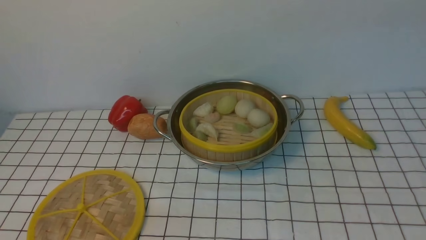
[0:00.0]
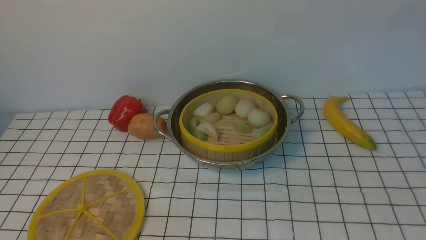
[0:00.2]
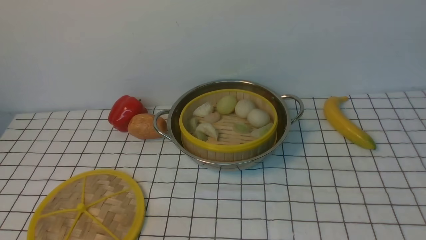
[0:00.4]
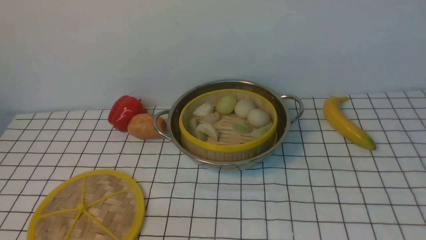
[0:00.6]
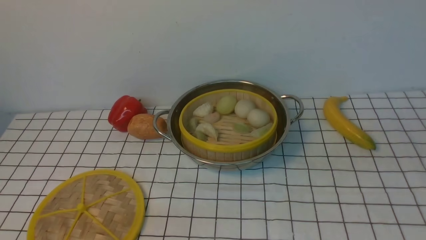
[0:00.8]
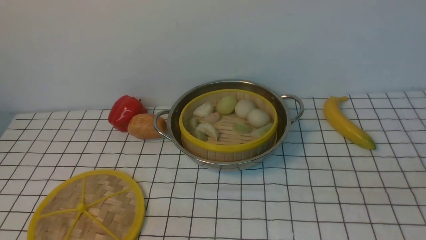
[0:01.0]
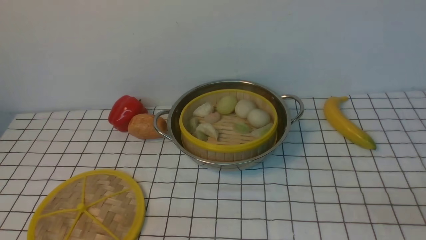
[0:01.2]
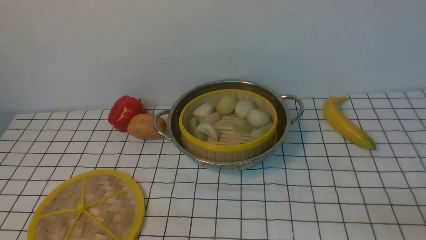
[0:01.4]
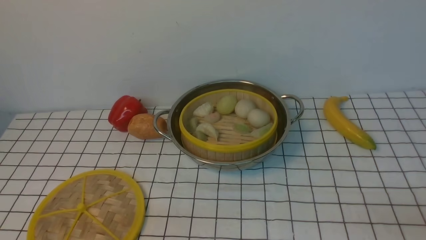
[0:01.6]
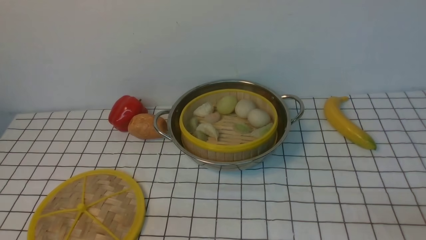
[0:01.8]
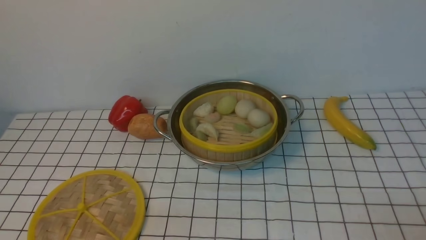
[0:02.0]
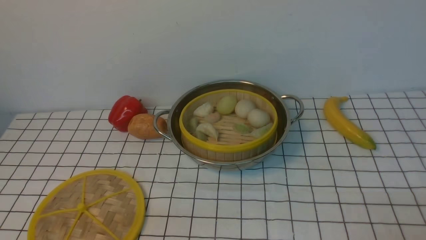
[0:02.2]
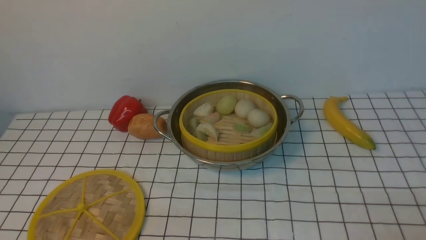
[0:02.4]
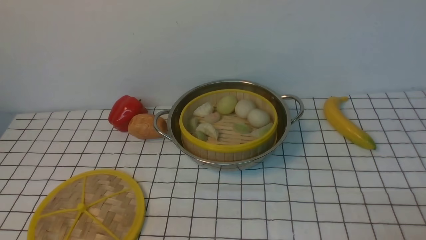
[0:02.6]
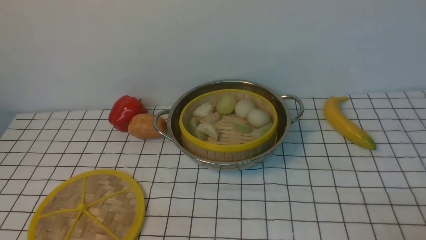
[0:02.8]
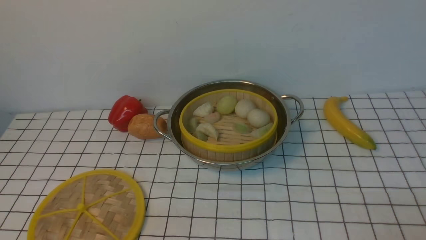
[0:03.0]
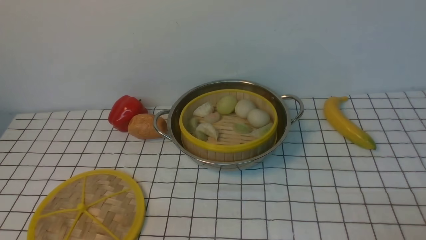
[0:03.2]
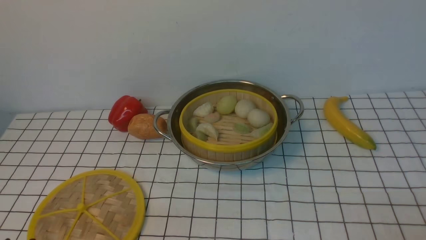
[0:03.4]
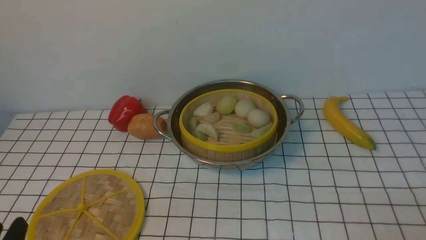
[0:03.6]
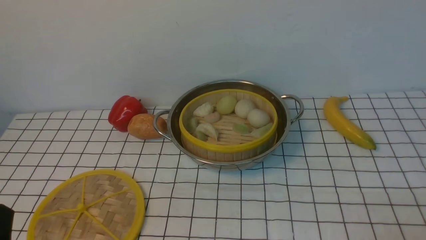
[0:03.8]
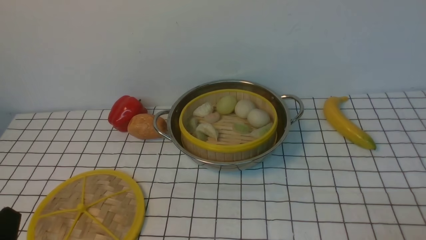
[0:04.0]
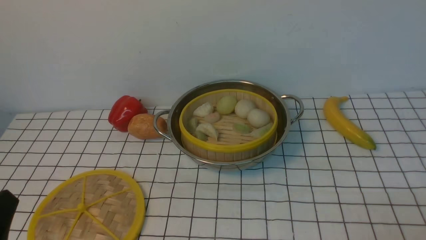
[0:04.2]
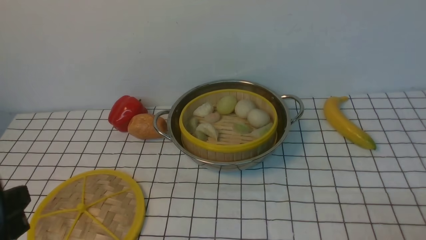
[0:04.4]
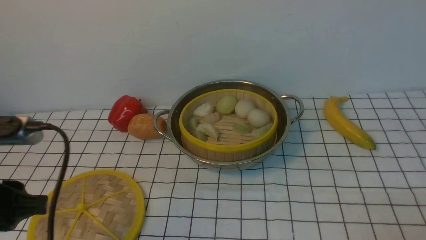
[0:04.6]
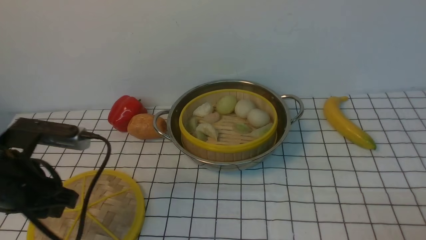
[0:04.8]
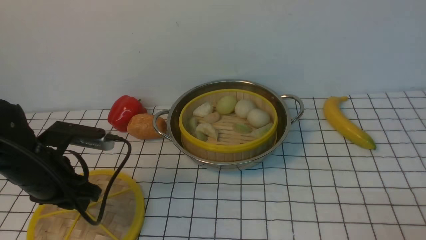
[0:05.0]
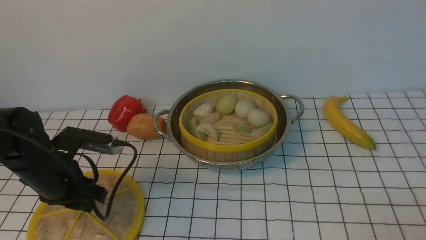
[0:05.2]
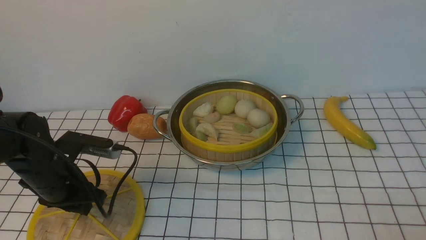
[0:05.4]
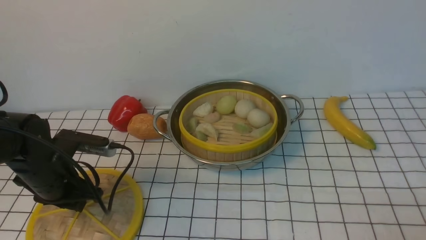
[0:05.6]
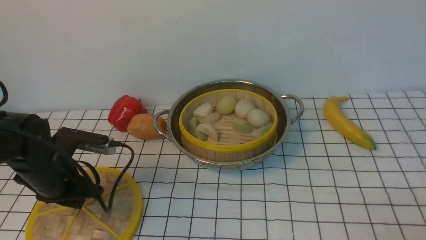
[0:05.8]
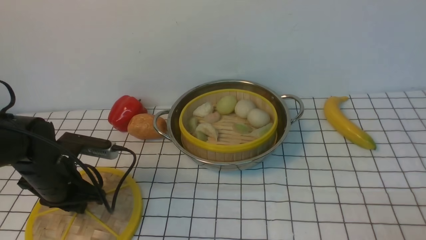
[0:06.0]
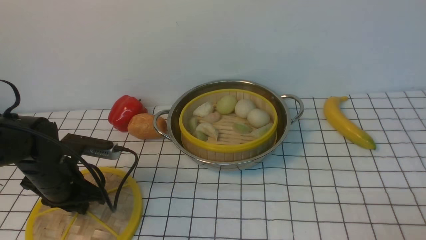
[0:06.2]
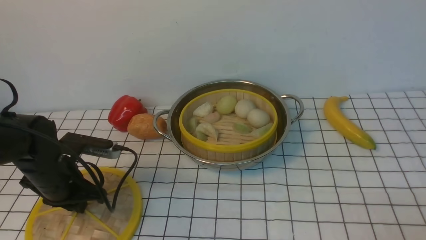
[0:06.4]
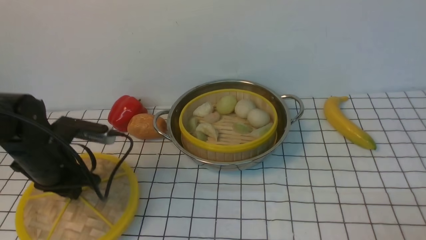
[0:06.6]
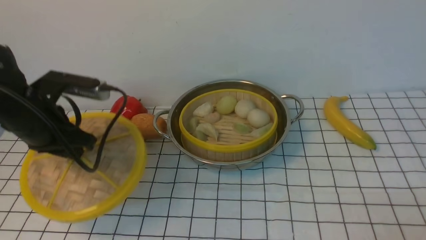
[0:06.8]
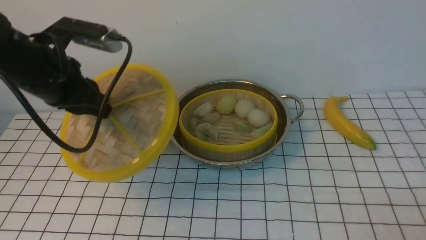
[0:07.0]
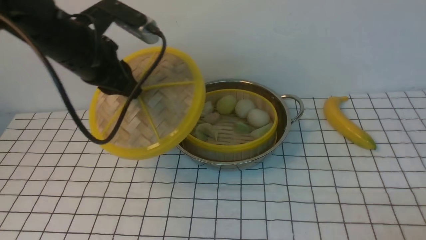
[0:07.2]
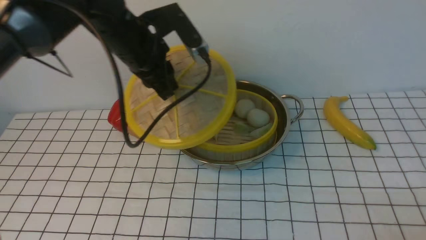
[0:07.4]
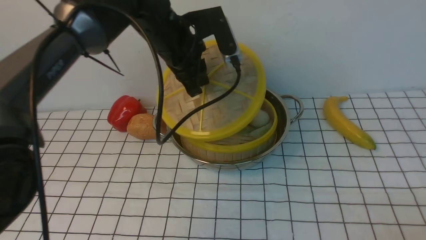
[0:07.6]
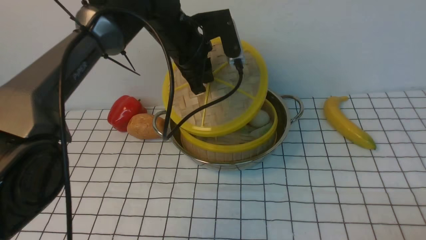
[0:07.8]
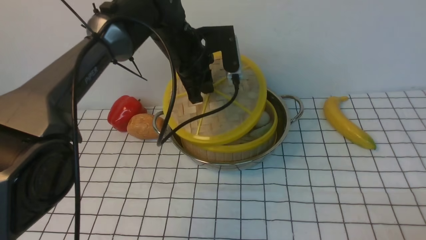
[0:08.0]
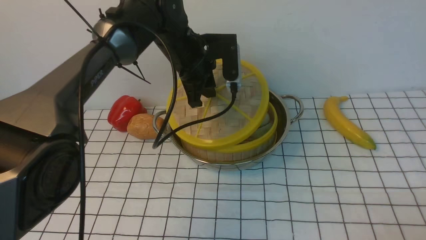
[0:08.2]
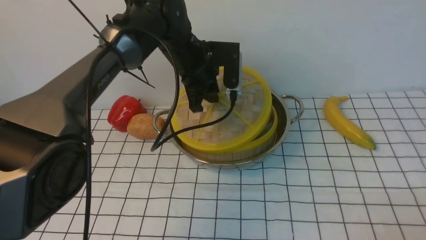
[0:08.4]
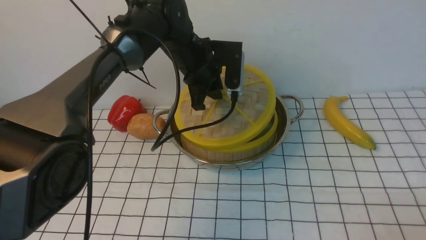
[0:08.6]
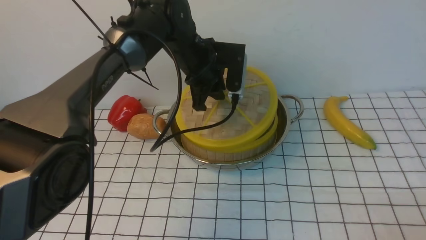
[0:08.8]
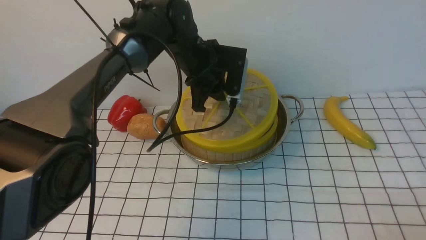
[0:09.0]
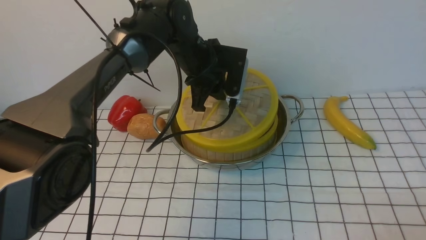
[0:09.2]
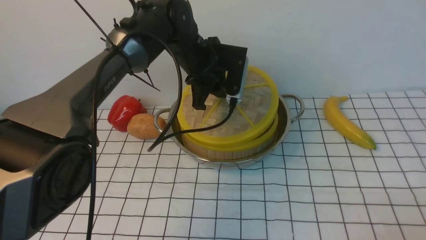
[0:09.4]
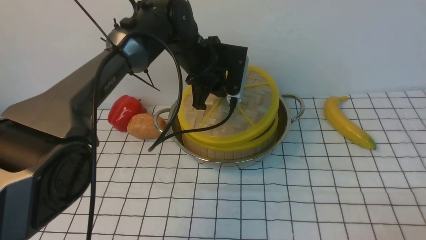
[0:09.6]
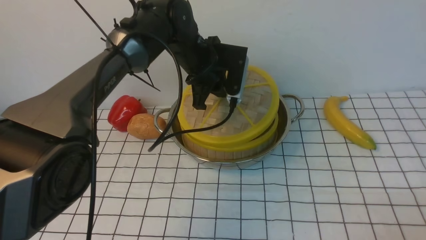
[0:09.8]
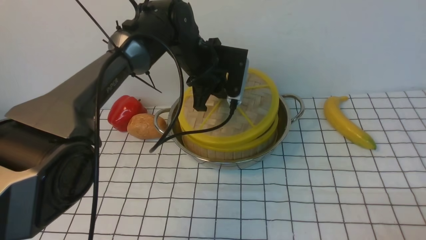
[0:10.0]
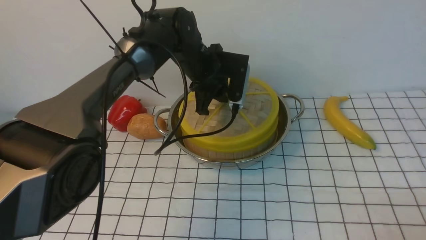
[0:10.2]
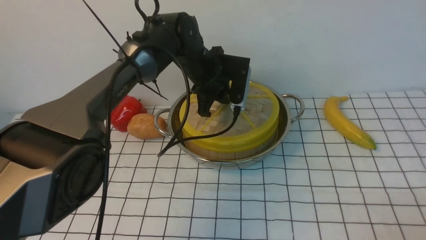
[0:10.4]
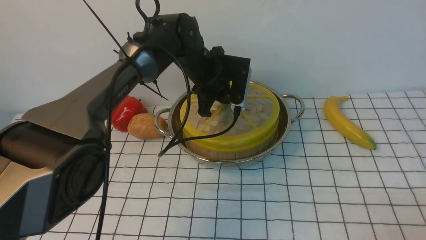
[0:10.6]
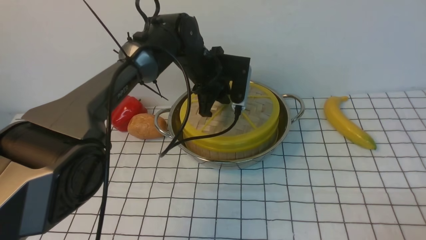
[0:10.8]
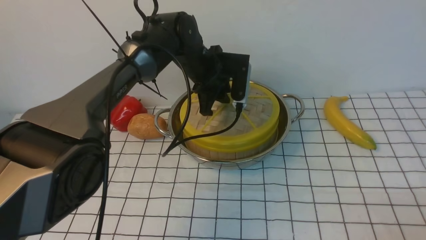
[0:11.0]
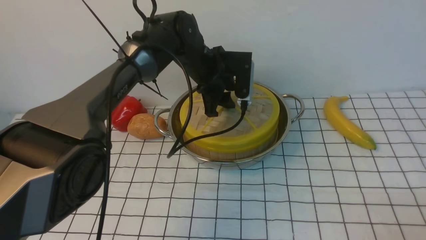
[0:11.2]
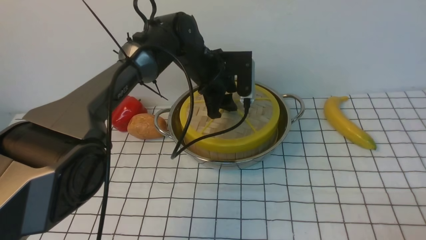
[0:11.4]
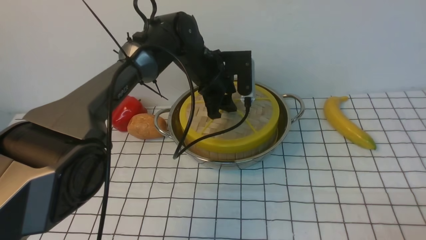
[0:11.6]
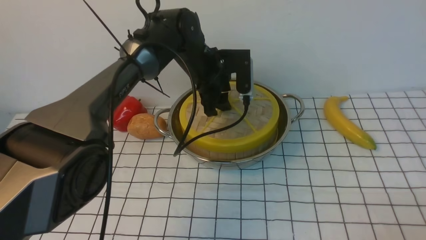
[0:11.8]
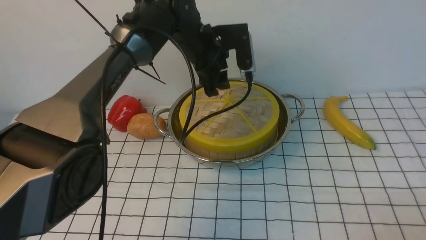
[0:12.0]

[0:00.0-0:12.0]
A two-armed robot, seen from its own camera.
Task of the whole recording: place the steamer in the pot on the white tablecloth, and put the lid on the steamer.
Step, 0:00.0 to 0:06.6: use the left arm to lift the lid of the steamer.
0:03.0 to 0:04.4: The left gripper goes roughly 10 cm upward.
0:04.4 to 0:06.0: The left gripper travels forward and downward by approximately 25 cm.
0:06.0 to 0:07.6: The left gripper shifts about 25 cm to the right, upward and forward.
0:07.6 to 0:09.0: The left gripper shifts some 5 cm downward.
0:09.0 to 0:10.4: The grippers stay close to where they were, moving slightly.
0:10.4 to 0:12.0: The left gripper moves upward, roughly 5 cm, and opens.

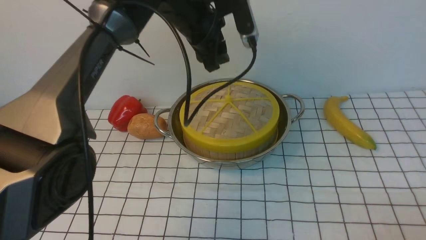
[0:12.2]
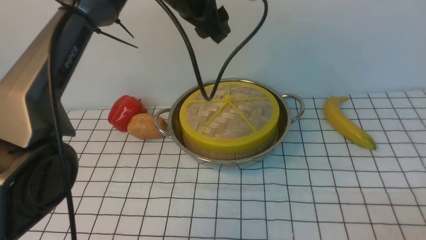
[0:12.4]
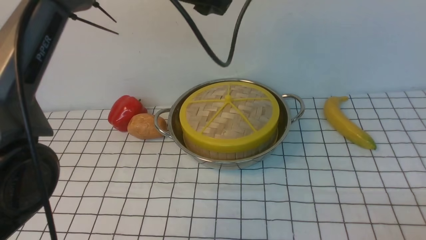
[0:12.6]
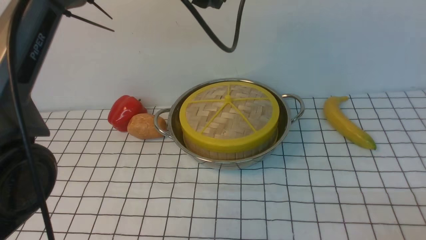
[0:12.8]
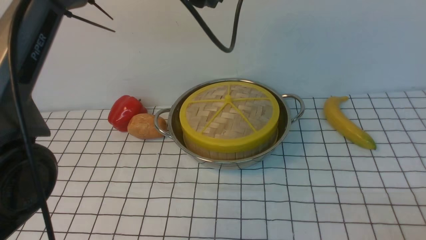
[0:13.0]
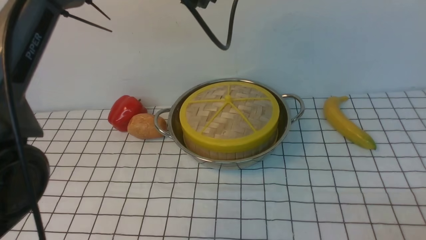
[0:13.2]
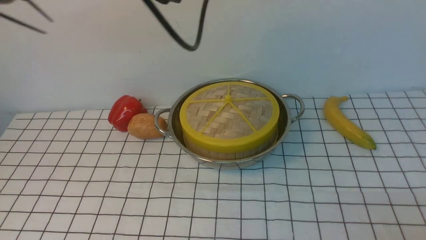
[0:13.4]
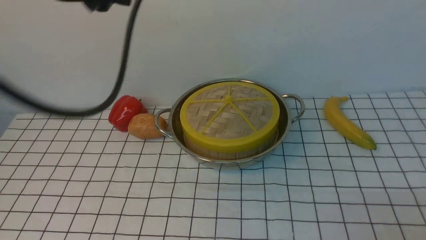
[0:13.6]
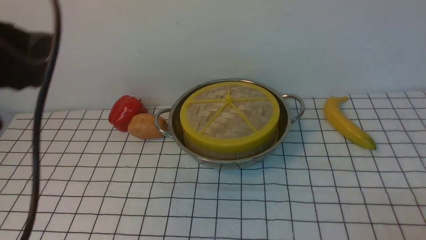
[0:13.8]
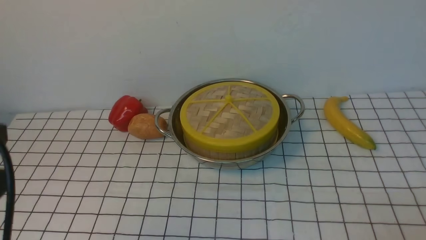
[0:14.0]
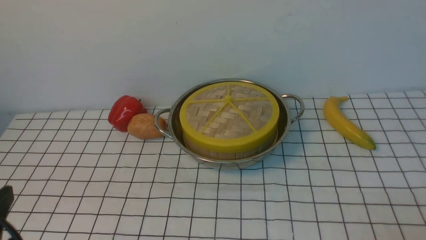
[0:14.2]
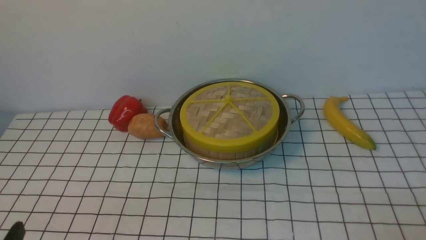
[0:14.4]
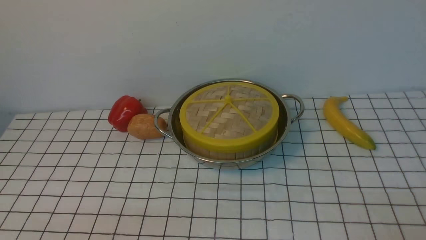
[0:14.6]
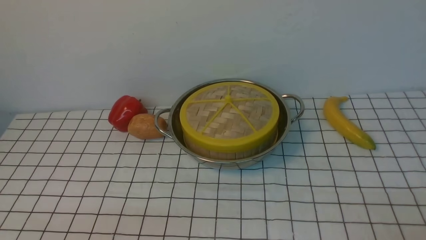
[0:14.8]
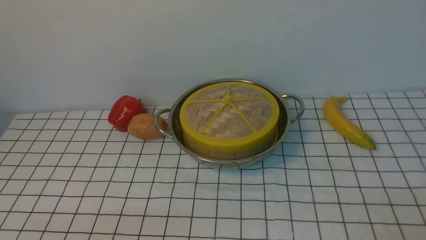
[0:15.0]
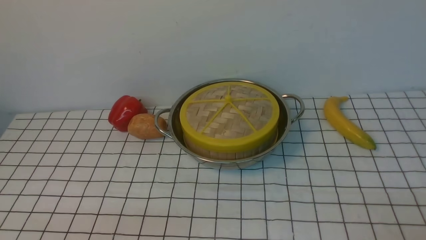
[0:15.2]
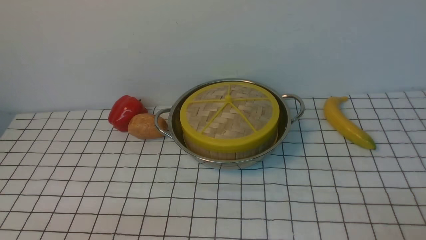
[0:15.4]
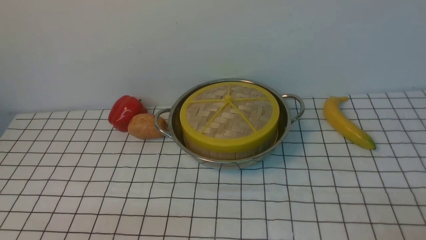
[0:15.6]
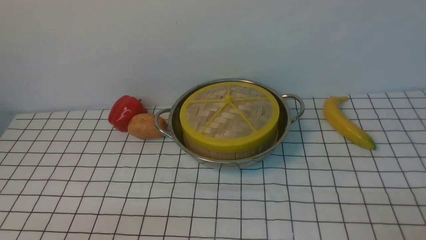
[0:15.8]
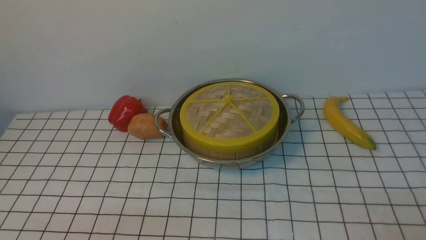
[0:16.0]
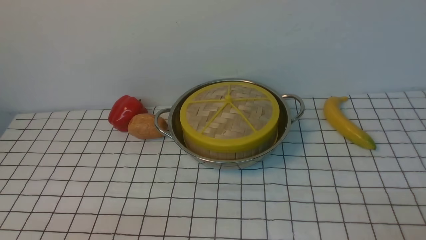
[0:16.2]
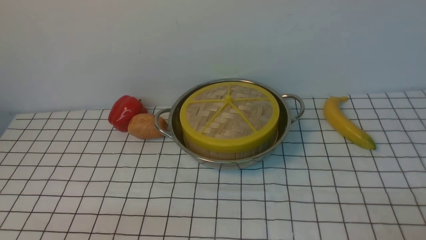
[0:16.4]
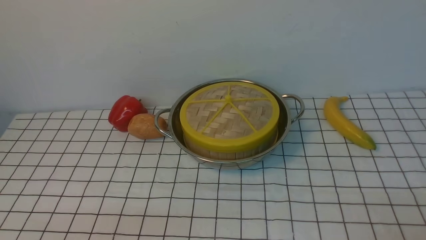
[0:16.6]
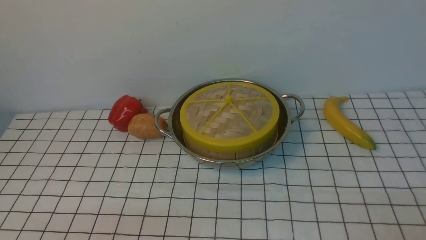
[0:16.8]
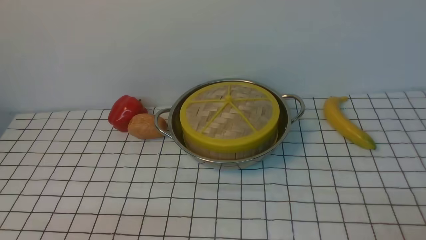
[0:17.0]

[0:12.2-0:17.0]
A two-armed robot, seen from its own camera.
Task of the whole recording: place the steamer in the pot on the white tablecloth, and put the lid on the steamer.
0:12.2 to 0:13.8: The left gripper shifts approximately 35 cm backward and to the left.
0:13.8 to 0:15.4: The left gripper travels downward and backward by about 25 cm.
0:15.4 to 0:17.0: Both grippers stay put.
